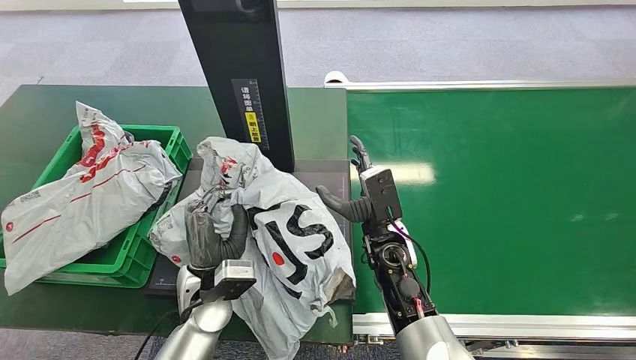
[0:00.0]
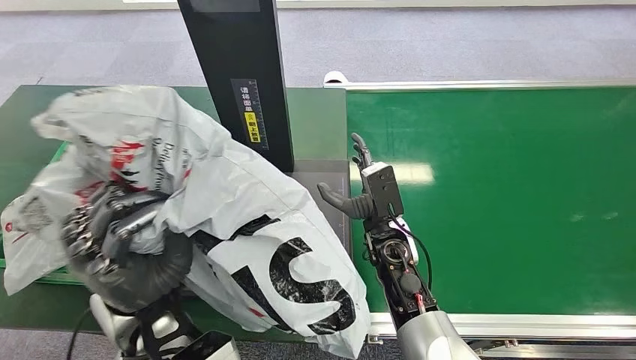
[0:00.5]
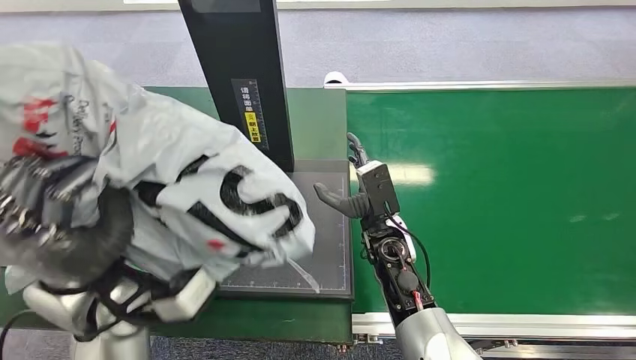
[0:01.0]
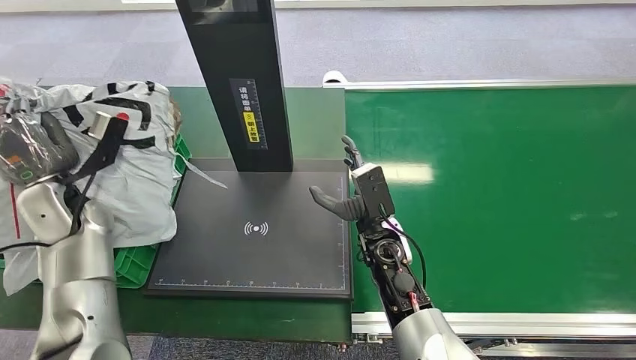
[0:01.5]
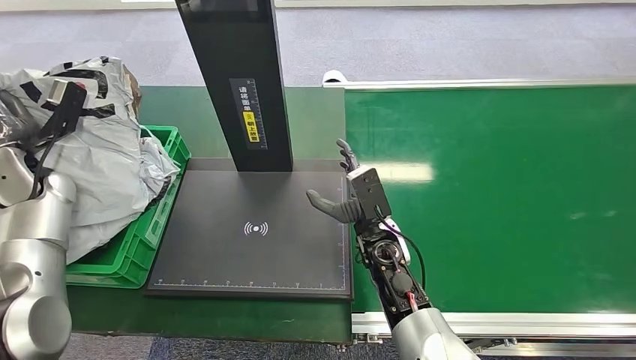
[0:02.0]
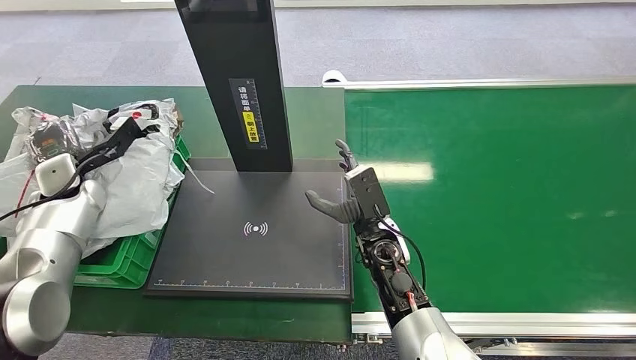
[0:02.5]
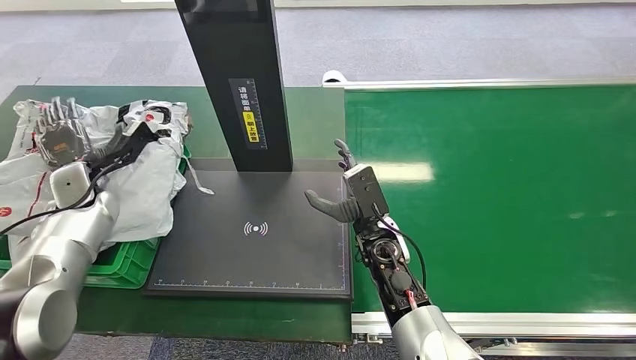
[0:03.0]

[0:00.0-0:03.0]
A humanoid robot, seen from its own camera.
Step, 0:00.5 to 0:03.0: Place the package into the parcel locker.
0:01.5 to 0:03.0: The left hand travels forward by about 5 cm.
